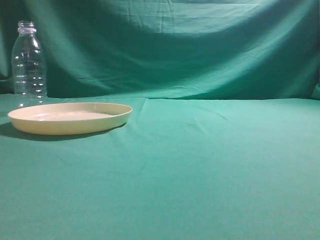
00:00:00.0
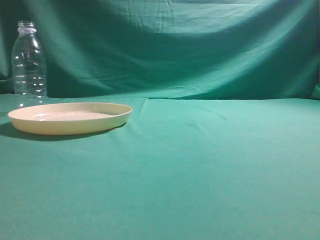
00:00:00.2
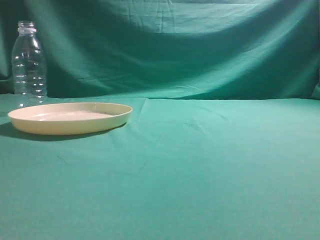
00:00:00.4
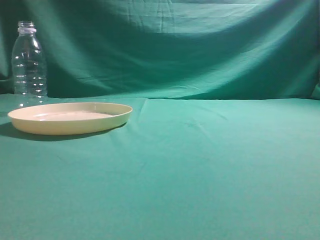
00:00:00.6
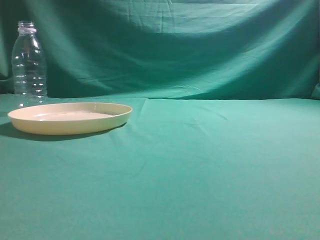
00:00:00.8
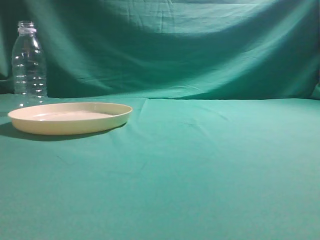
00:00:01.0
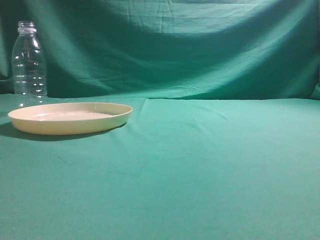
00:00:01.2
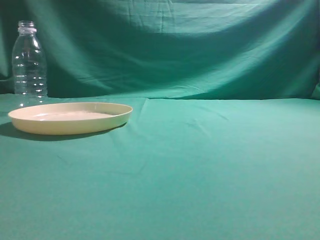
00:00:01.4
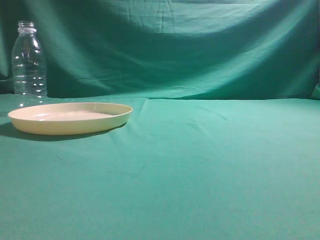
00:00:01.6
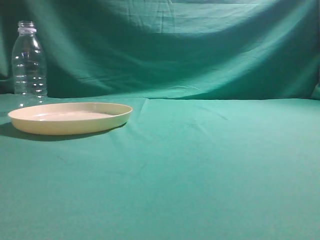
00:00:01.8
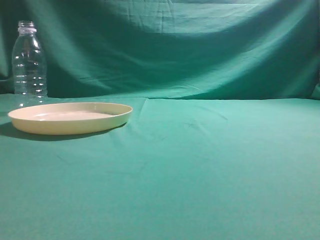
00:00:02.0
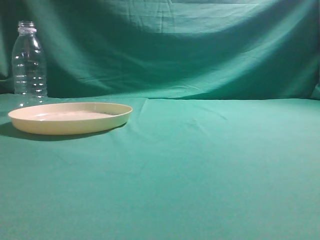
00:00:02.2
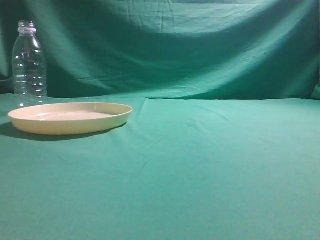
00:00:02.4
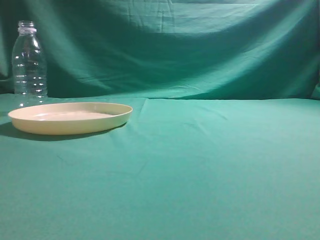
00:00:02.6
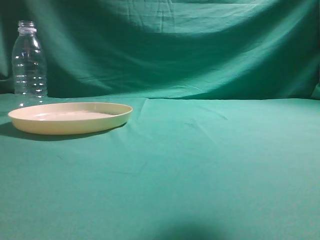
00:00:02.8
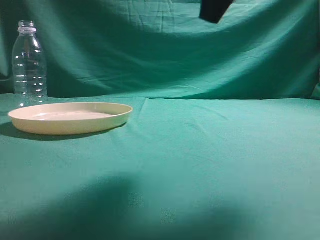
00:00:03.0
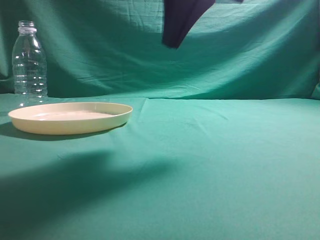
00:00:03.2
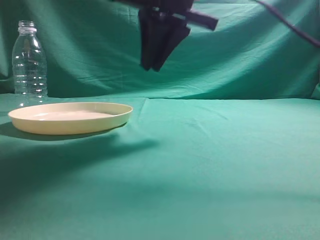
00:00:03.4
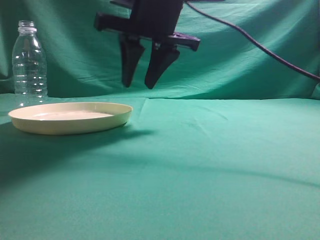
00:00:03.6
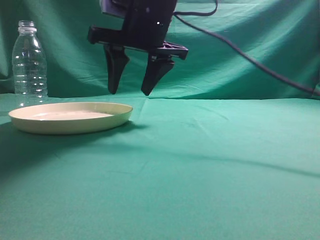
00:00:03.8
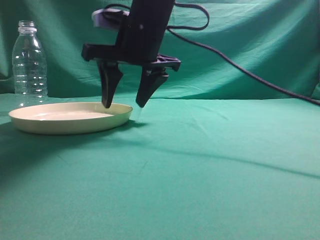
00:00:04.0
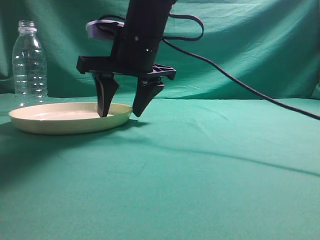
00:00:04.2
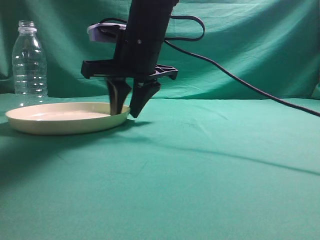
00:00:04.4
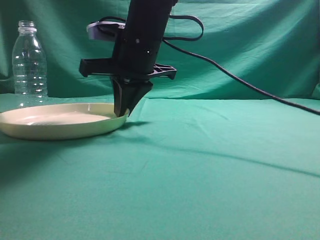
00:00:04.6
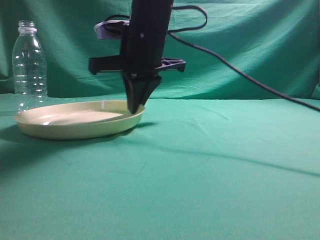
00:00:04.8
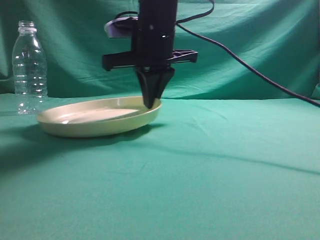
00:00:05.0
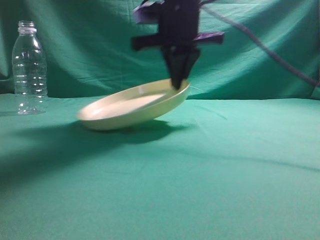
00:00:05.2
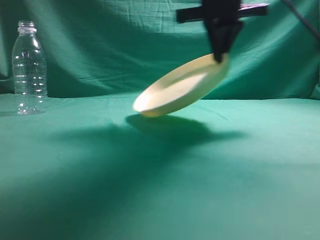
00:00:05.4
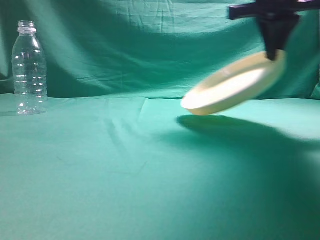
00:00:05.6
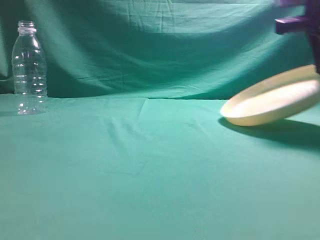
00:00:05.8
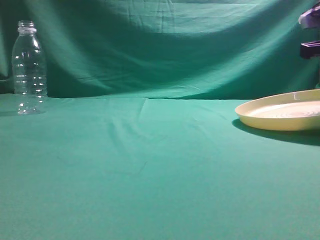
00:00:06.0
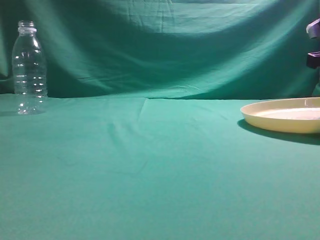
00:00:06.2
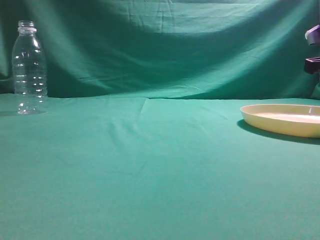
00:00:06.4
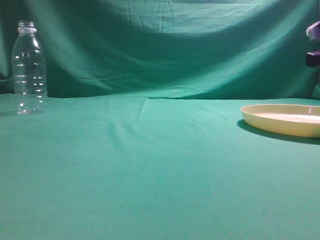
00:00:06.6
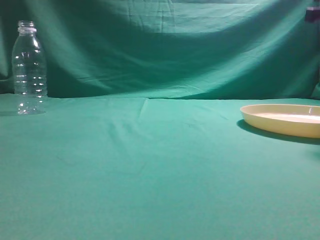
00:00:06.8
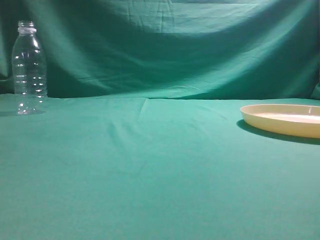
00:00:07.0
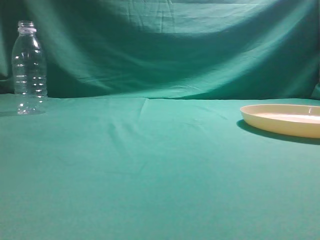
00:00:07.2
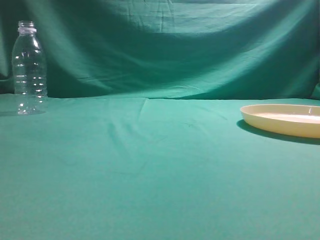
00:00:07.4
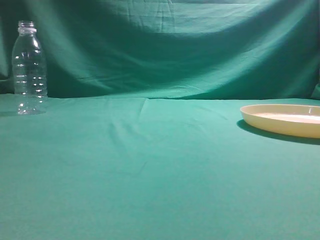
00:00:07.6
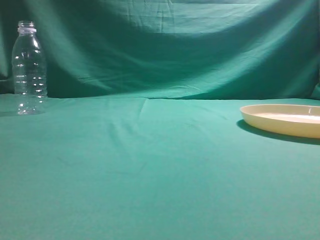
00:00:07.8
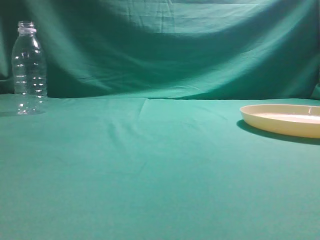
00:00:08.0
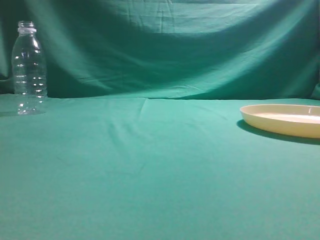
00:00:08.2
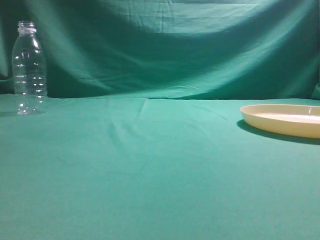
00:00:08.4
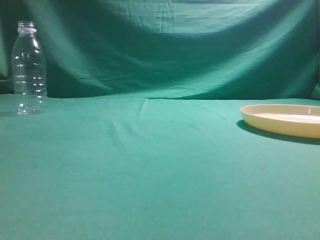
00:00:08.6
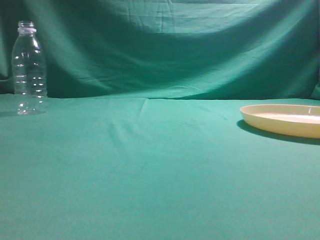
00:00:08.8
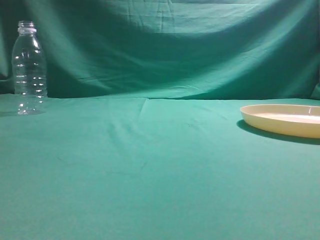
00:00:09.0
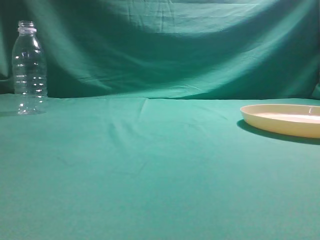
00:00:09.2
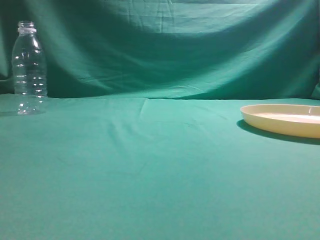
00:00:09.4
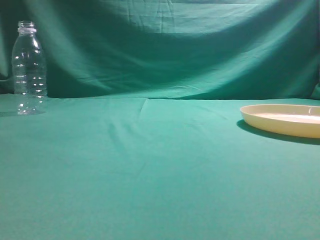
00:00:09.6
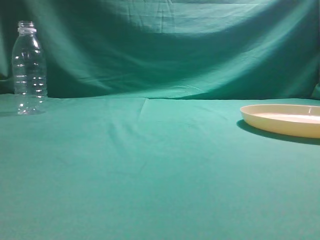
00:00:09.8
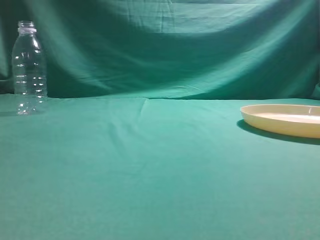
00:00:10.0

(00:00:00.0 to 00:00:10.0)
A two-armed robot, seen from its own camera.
Step, 00:00:00.0 - 00:00:05.4: Pick the container that can hold fruits.
Step, 00:00:05.6 - 00:00:07.0: Move the picked object to the right side of the table.
00:00:01.4 - 00:00:02.8: The right gripper heads forward, to the left and upward, covering roughly 20 cm.
00:00:02.8 - 00:00:04.2: The right gripper travels to the left, forward and downward by roughly 30 cm, and opens its fingers.
00:00:04.2 - 00:00:05.8: The right gripper is displaced to the right by some 25 cm, and closes its fingers.
00:00:05.8 - 00:00:07.2: The right gripper shifts roughly 15 cm backward and upward, and opens and closes again.
